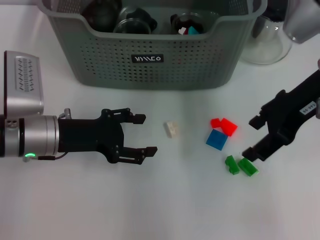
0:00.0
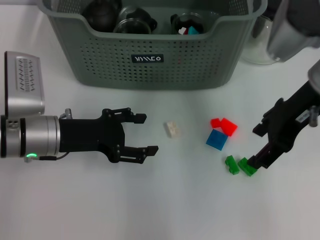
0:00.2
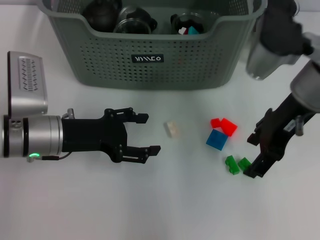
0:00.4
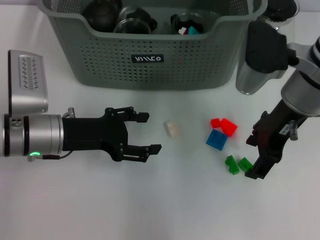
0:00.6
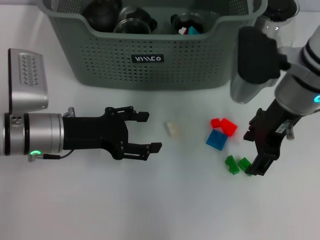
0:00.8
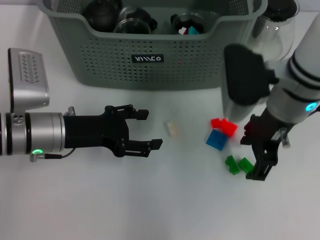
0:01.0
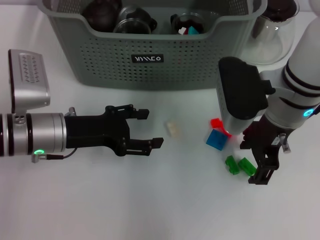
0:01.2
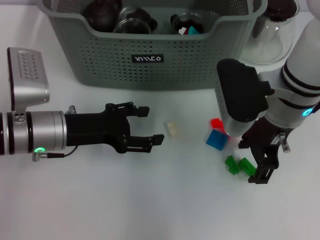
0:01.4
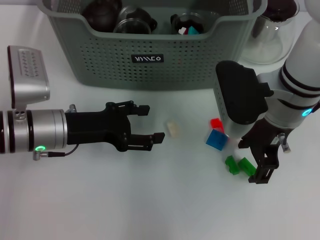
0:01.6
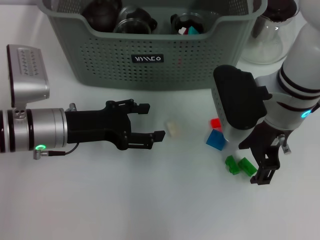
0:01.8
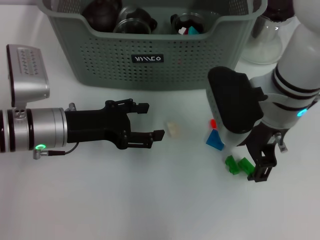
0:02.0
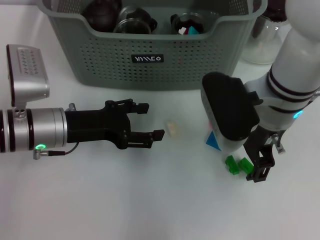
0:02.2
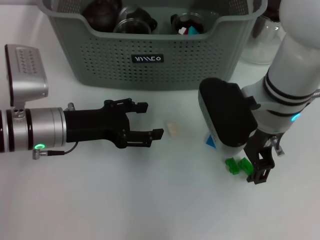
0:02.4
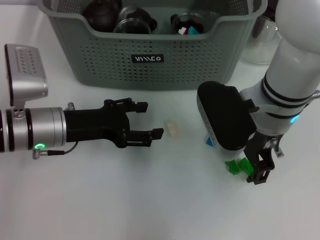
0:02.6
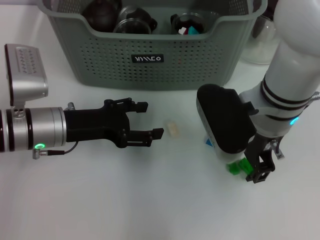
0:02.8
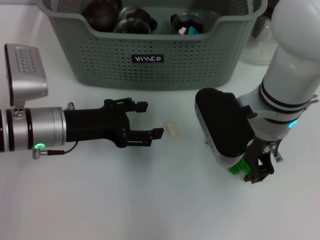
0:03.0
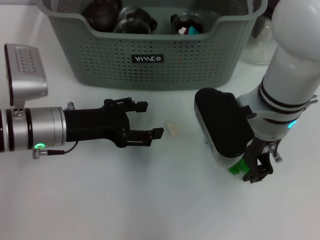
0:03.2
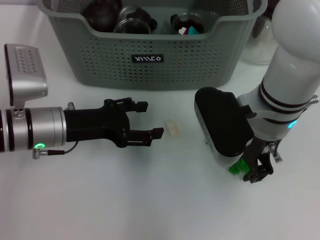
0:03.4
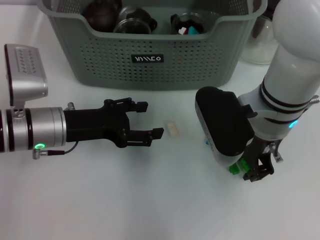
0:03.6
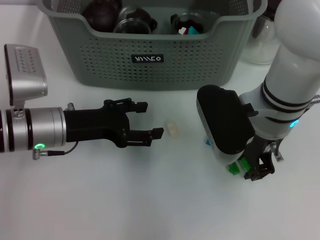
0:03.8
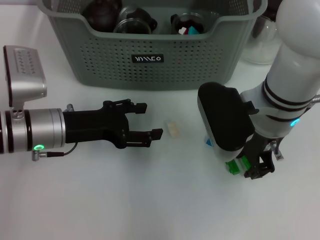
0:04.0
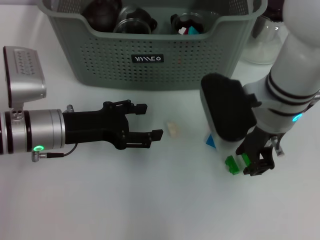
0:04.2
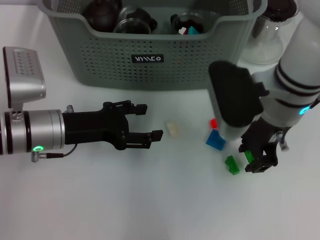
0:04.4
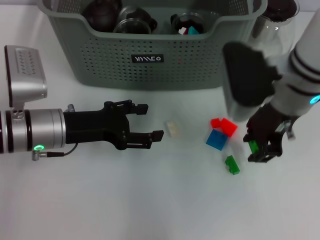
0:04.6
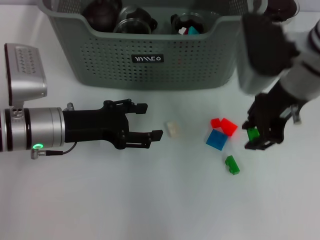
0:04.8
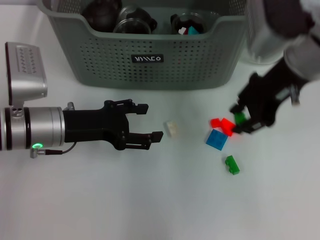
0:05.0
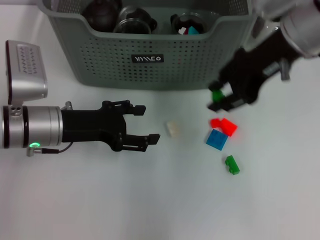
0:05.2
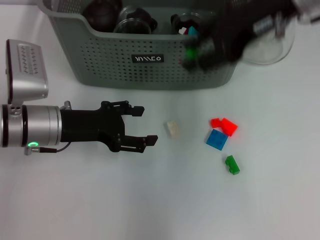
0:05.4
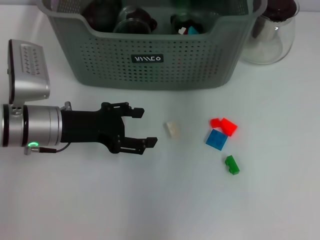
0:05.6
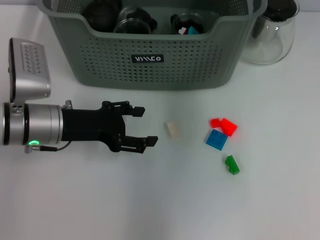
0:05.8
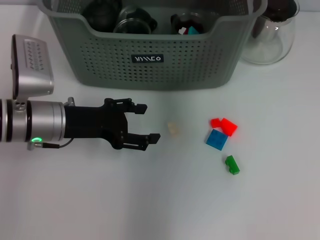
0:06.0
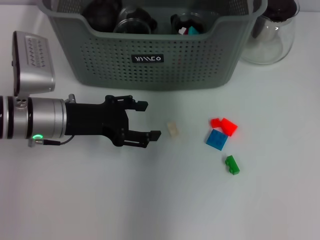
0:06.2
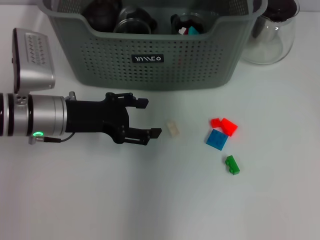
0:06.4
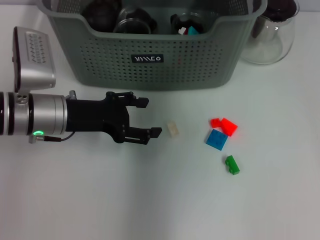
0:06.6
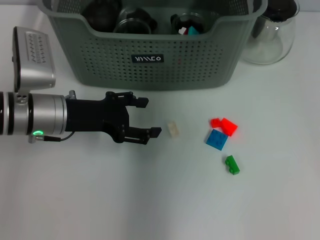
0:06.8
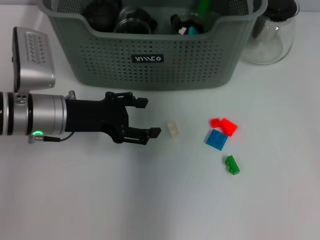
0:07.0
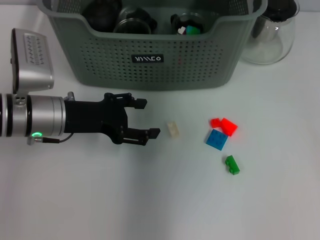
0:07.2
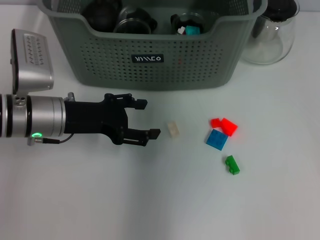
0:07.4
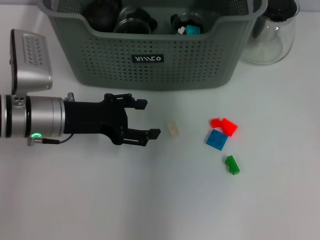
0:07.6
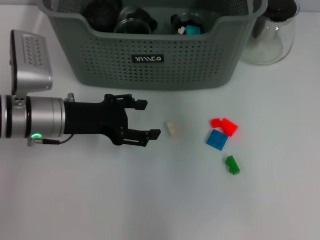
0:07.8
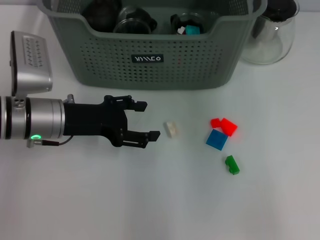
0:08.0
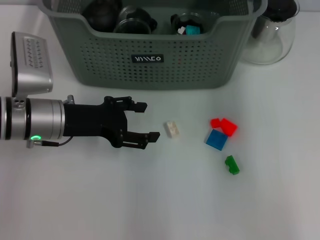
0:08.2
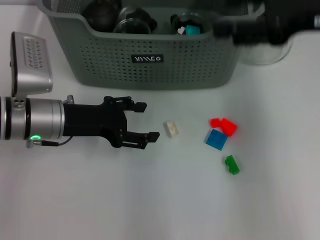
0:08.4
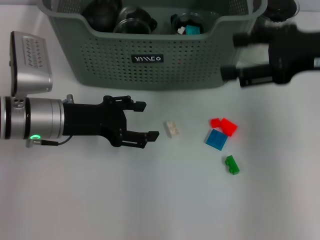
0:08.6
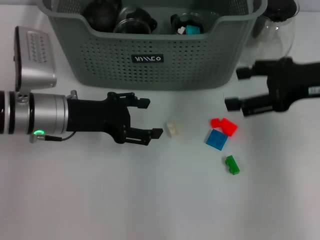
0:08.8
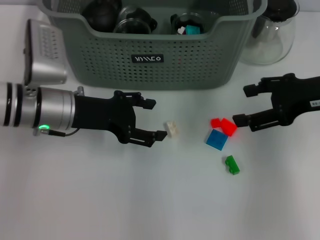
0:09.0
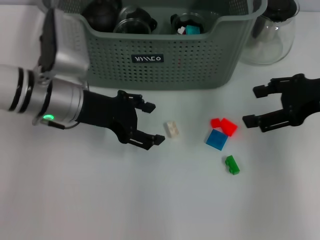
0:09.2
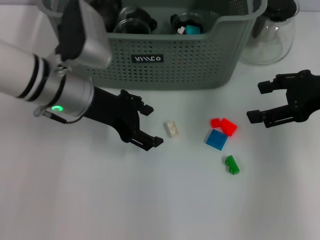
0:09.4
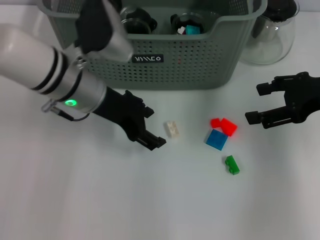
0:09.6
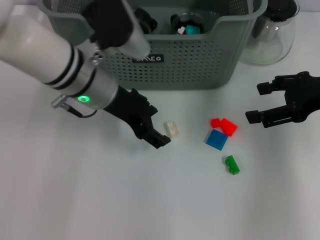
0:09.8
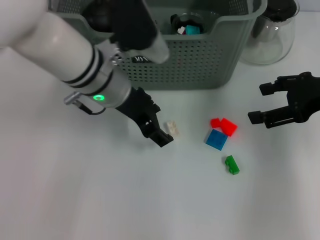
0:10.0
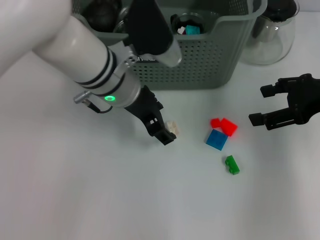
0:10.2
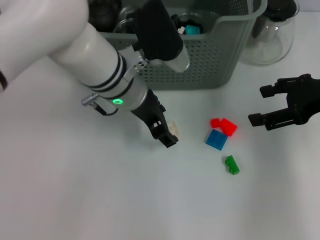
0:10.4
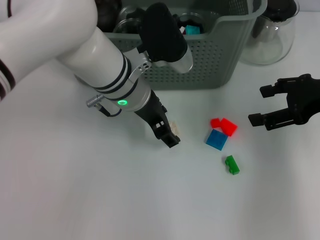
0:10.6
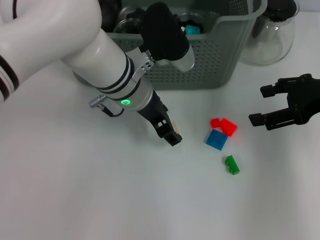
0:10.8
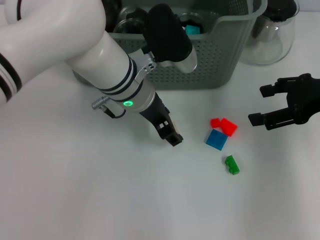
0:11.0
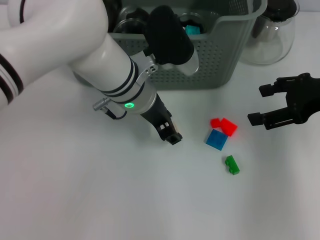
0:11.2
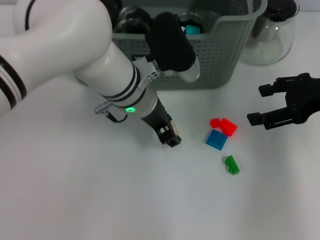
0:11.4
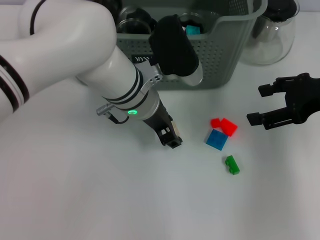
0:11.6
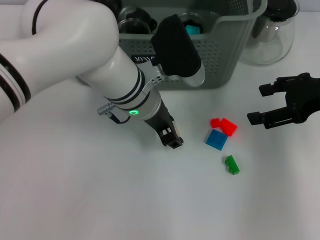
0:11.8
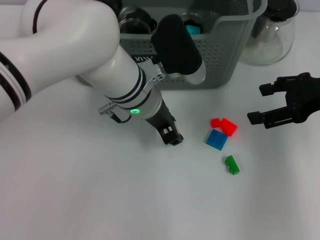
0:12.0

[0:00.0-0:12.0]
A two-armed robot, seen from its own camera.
Task of the whole recording: pick up the teacup on the table and place it into the storage bin, pick up the block on the table and place it into the storage bin.
Step, 0:00.0 to 0:03.4: Grasp the green block with right gripper.
Step, 0:03.6 to 0:07.0: Place the green block in the storage box with right gripper.
0:00.0 to 0:01.6: The right gripper goes roughly 10 cm downward and to the left.
0:01.6 to 0:04.4: The grippers move only a little.
0:04.4 to 0:06.0: The right gripper goes approximately 20 cm upward and forward.
0:07.6 to 0:09.0: The right gripper heads to the right, backward and downward, covering about 25 cm.
0:09.0 to 0:10.4: The left gripper is displaced to the right by roughly 10 cm.
0:10.4 to 0:12.0: The grippers stay close to where they were, moving slightly.

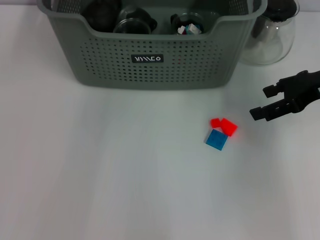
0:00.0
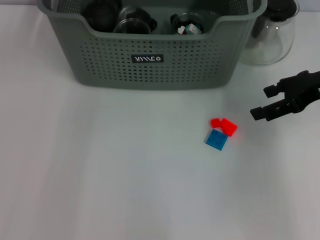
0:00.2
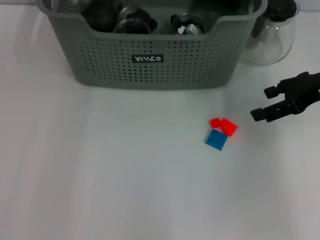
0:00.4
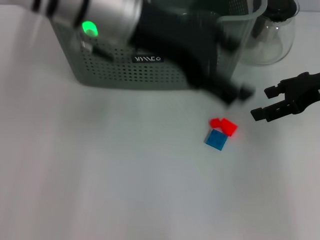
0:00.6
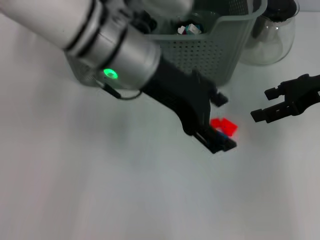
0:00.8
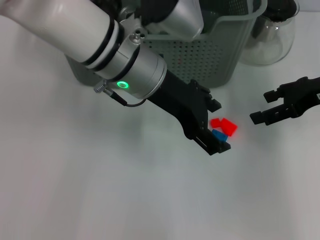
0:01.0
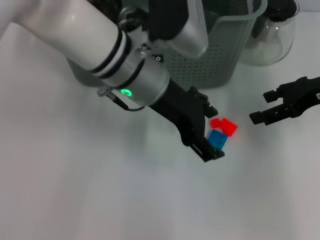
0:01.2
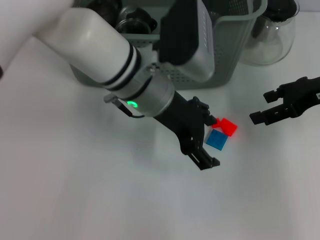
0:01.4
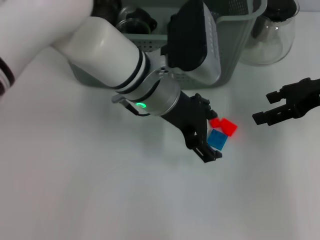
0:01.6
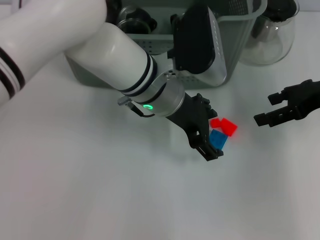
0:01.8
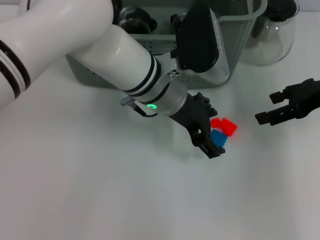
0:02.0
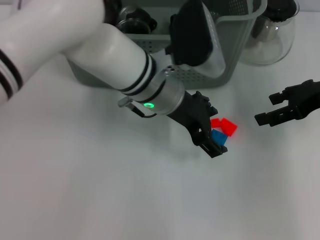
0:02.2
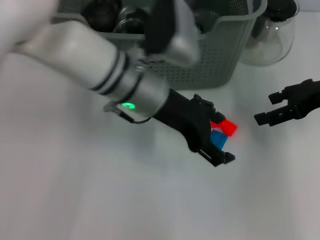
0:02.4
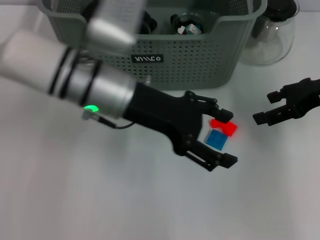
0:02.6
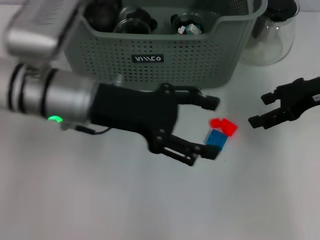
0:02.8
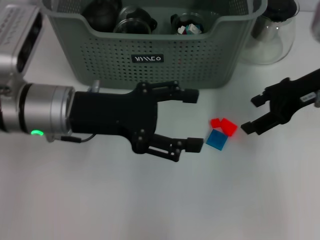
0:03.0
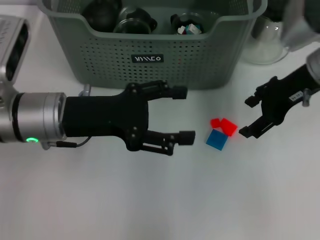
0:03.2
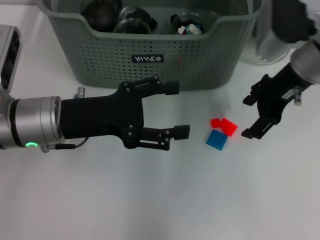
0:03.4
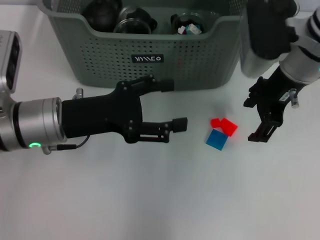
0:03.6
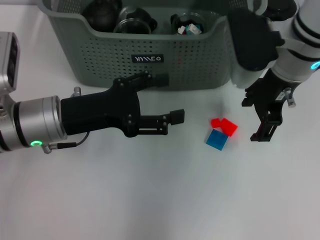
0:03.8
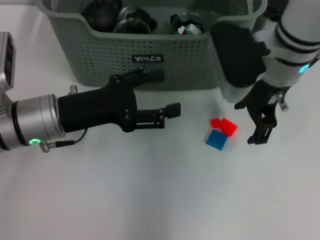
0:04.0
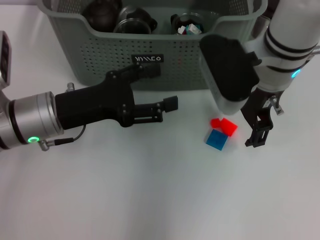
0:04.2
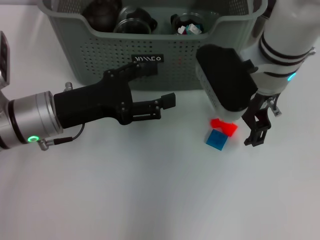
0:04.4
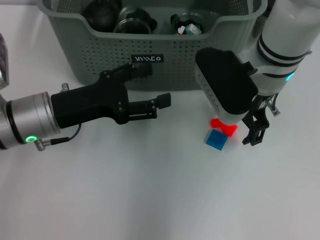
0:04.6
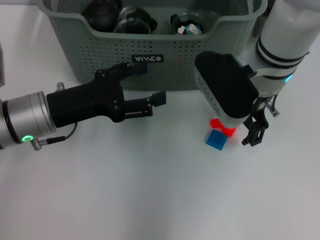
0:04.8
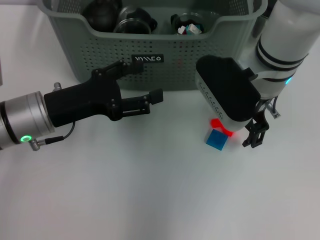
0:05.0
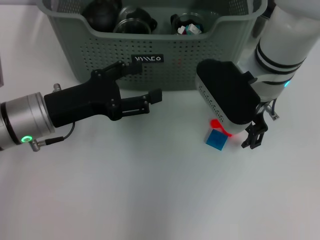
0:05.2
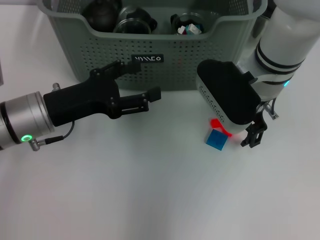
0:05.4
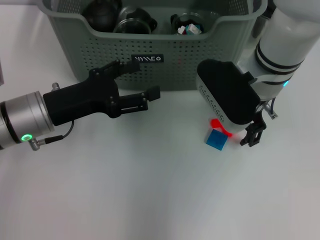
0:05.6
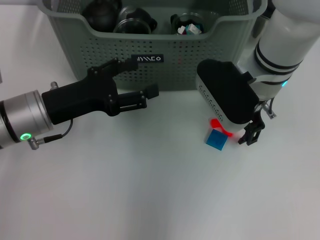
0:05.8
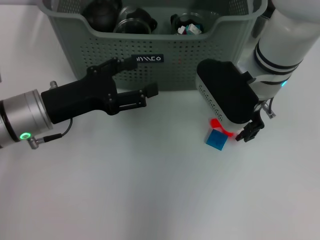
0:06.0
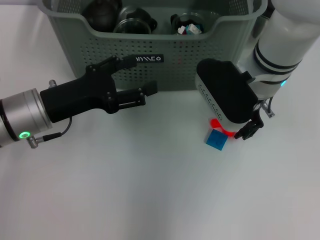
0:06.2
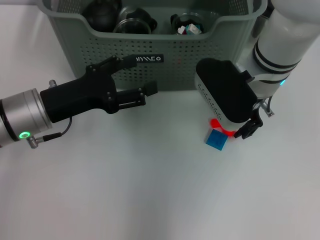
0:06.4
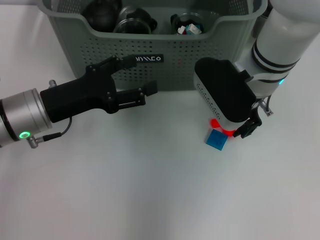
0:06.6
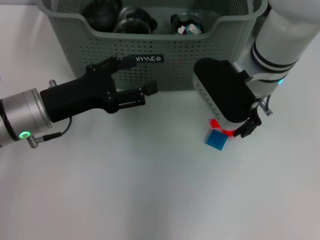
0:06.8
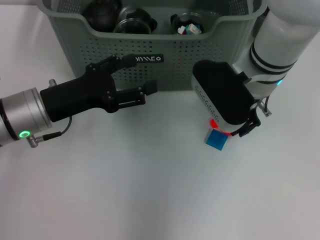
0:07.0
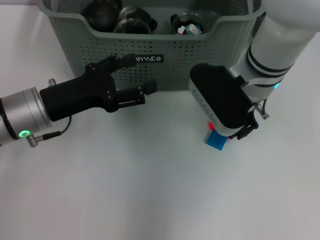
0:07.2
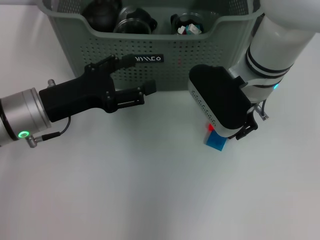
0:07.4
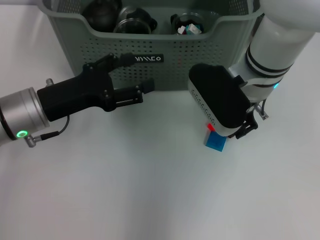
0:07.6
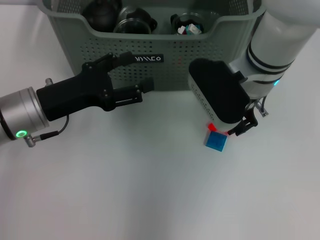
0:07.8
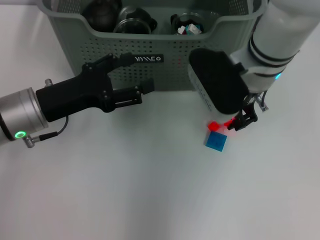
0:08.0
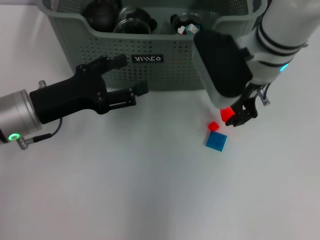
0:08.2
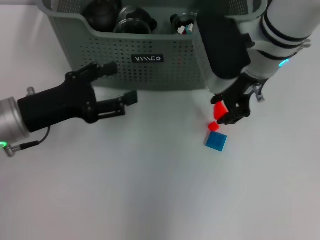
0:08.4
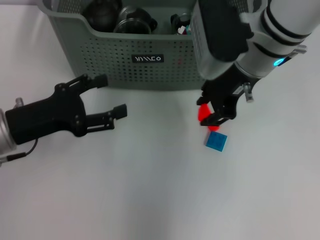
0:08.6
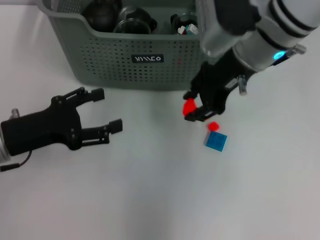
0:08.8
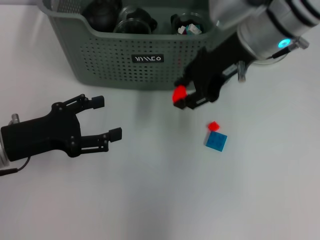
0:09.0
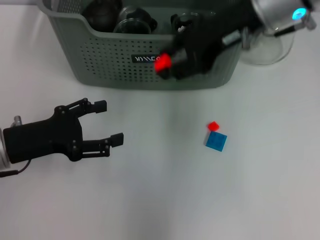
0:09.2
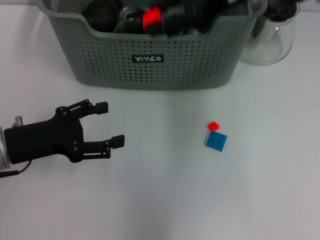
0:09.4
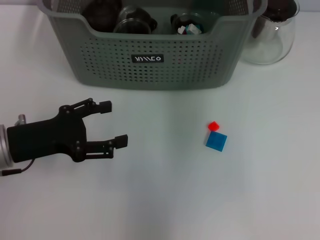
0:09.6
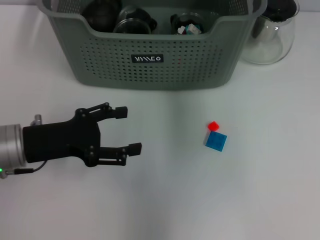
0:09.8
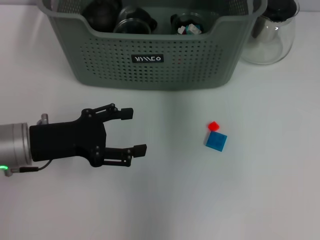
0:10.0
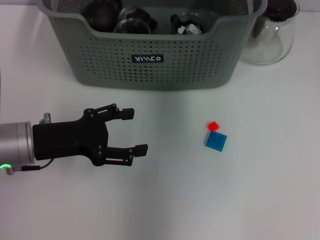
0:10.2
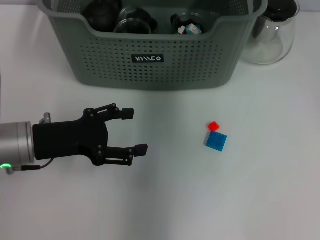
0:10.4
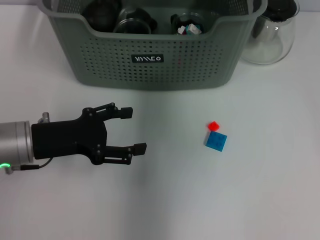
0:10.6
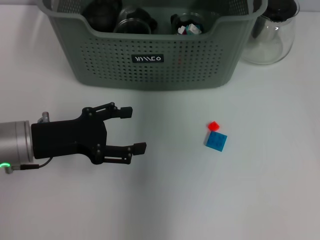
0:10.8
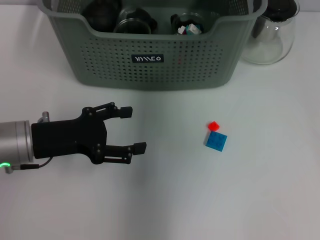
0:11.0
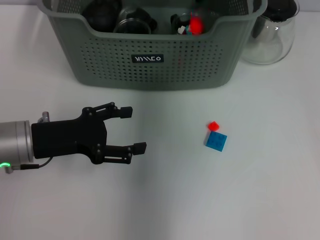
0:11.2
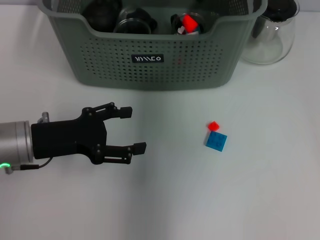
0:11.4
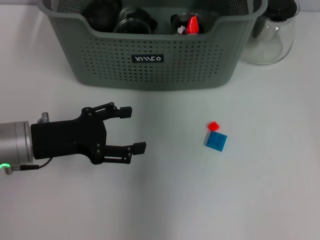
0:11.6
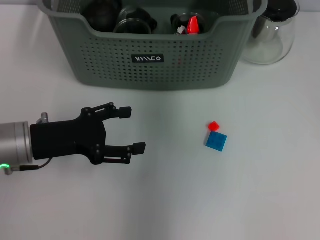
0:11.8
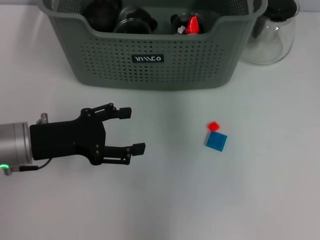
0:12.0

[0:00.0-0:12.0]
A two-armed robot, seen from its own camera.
Task of the whole recording: pick up the teacup on the table and place it into the storage bin, pick up the block on the table and place it into the storage bin.
Step, 0:00.0 to 0:07.4: Grasp the orange block with right gripper.
Step, 0:07.6 to 0:11.2: Place the orange block in the storage box with right gripper.
0:00.0 to 0:01.6: The left gripper shifts roughly 15 cm backward and downward.
0:01.6 to 0:03.0: The left gripper travels to the left by roughly 15 cm.
0:03.0 to 0:04.4: The right gripper goes some 15 cm to the left; the left gripper moves roughly 5 cm.
0:04.4 to 0:06.0: The grippers stay close to where they were, moving slightly.
0:06.0 to 0:07.6: The right gripper closes.
0:07.6 to 0:09.0: The left gripper shifts by approximately 5 cm. The right gripper heads upward, covering roughly 5 cm.
0:09.0 to 0:10.4: The right gripper heads forward and upward, covering some 10 cm.
0:10.4 to 0:12.0: The right gripper shifts some 10 cm upward and backward.
